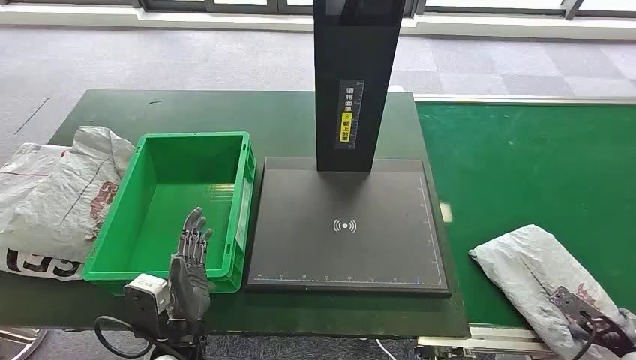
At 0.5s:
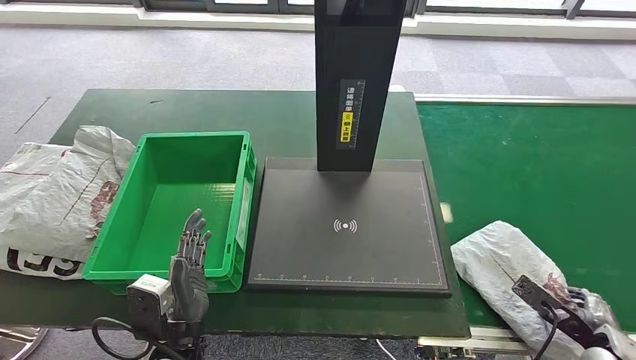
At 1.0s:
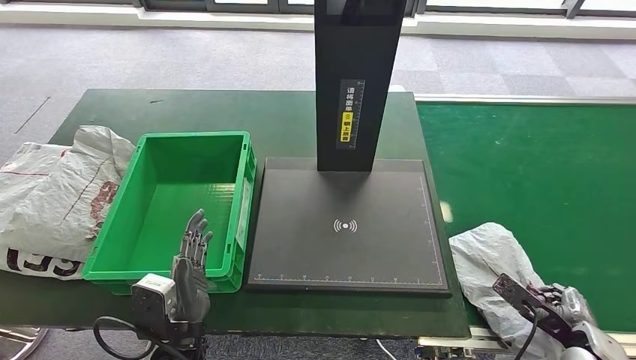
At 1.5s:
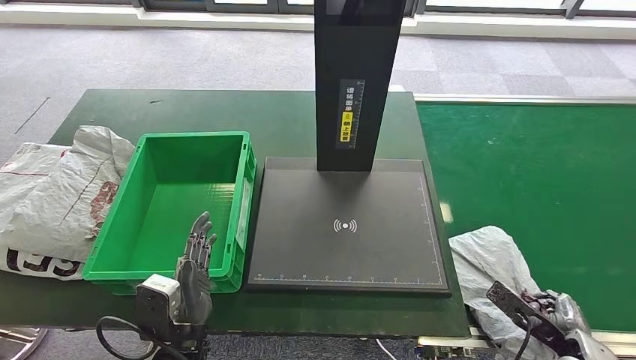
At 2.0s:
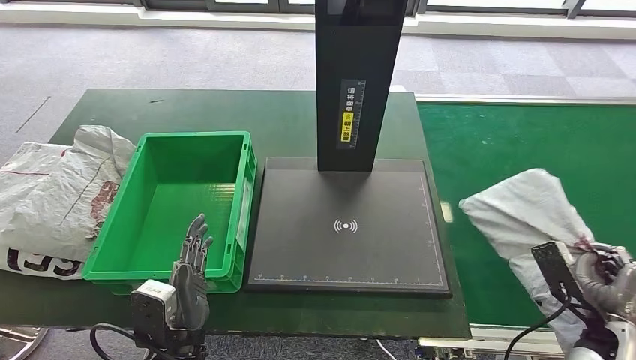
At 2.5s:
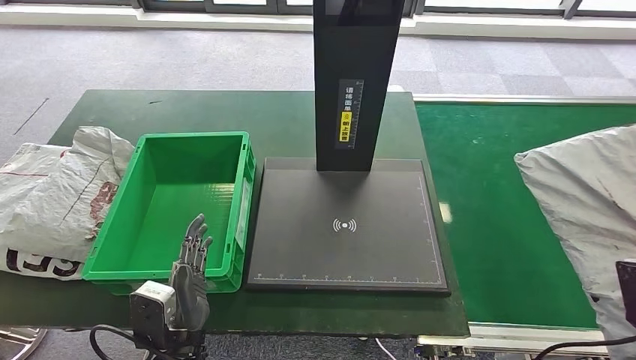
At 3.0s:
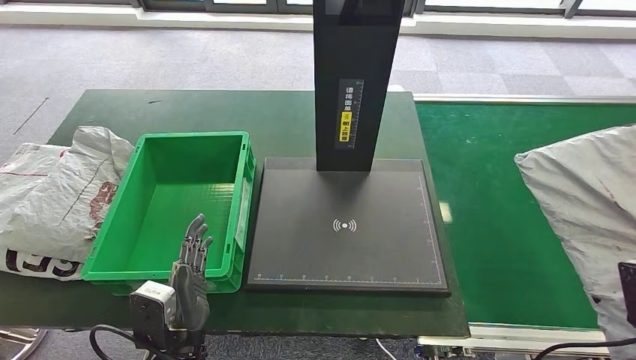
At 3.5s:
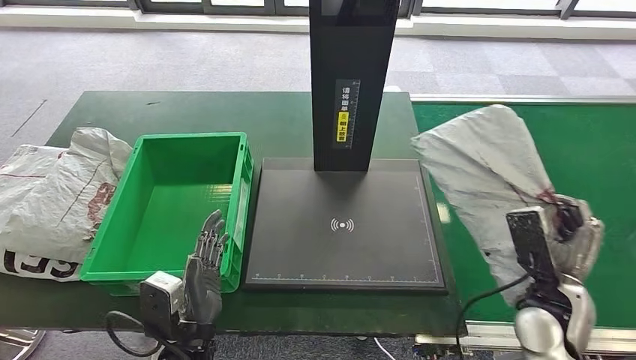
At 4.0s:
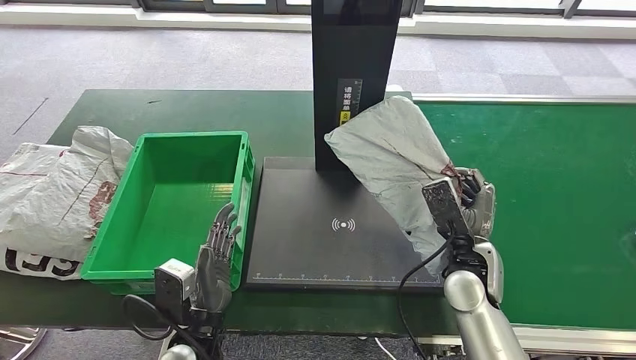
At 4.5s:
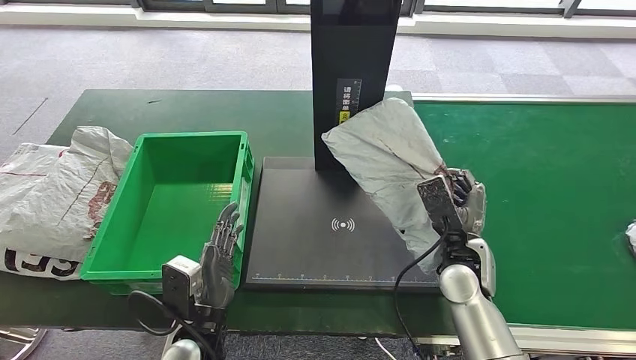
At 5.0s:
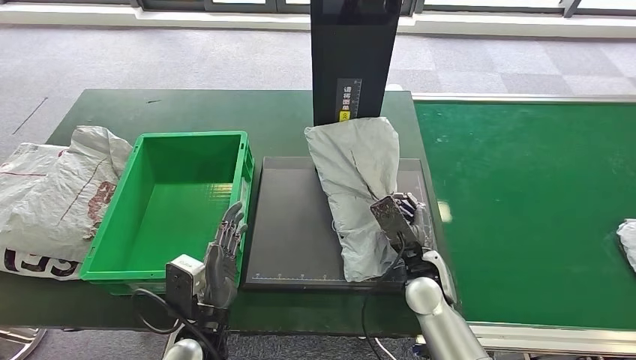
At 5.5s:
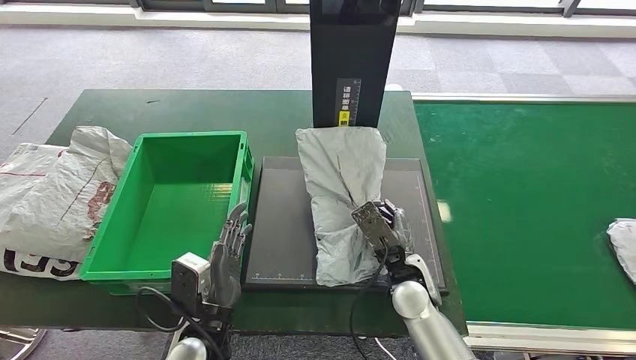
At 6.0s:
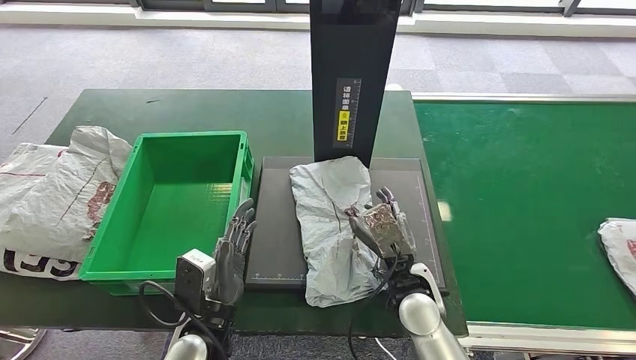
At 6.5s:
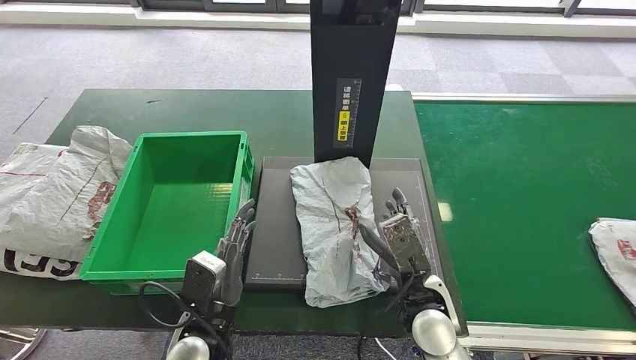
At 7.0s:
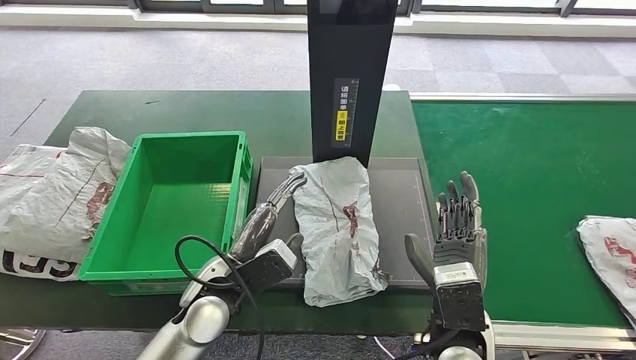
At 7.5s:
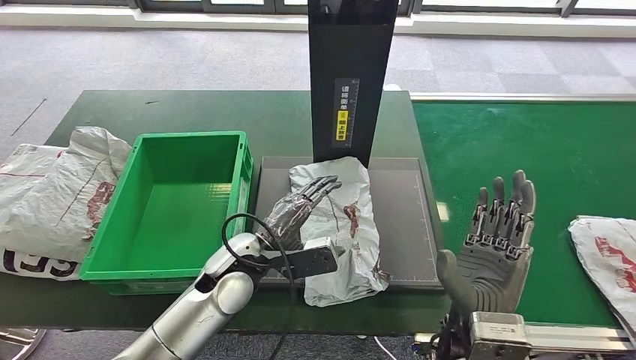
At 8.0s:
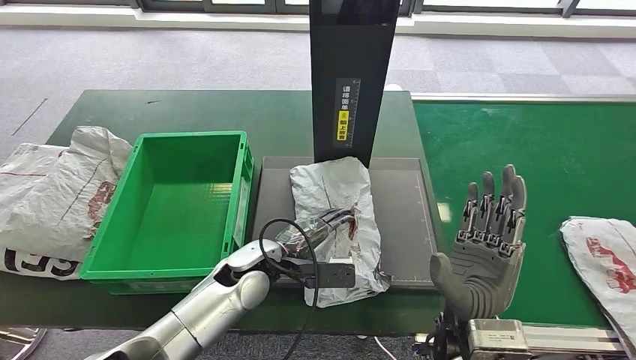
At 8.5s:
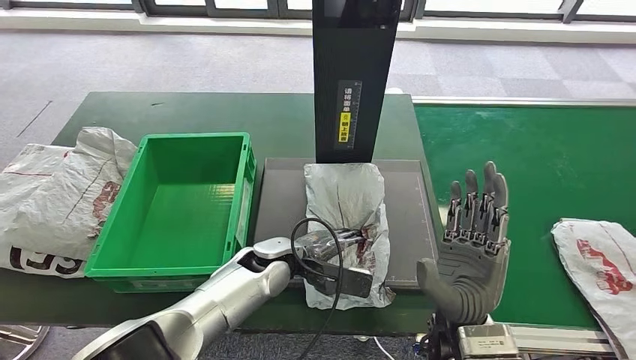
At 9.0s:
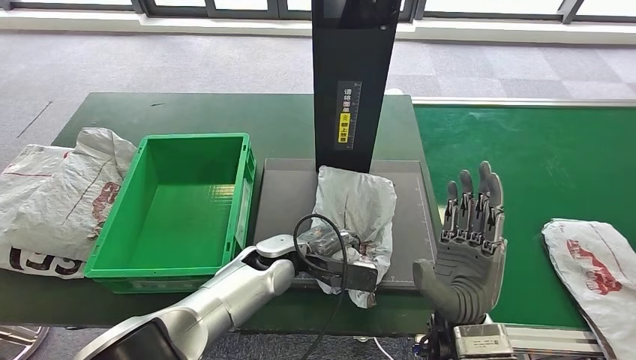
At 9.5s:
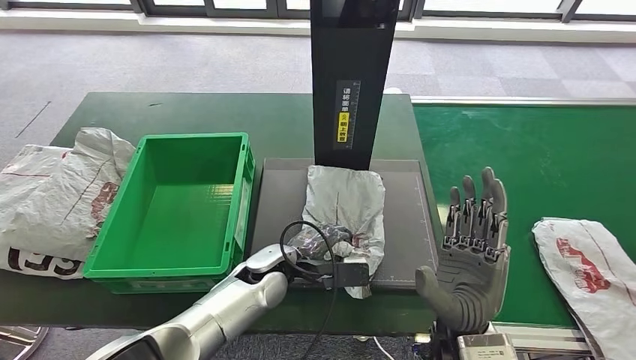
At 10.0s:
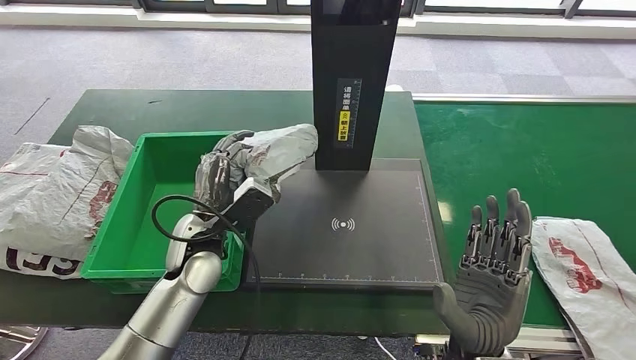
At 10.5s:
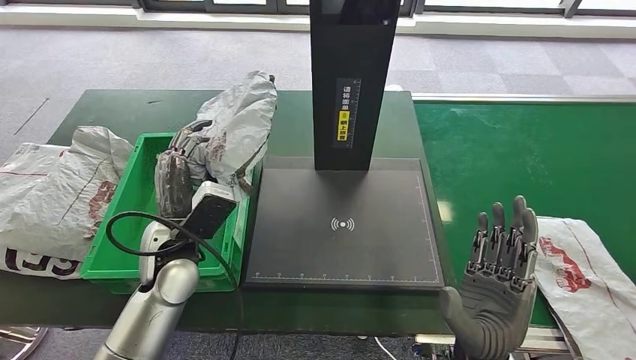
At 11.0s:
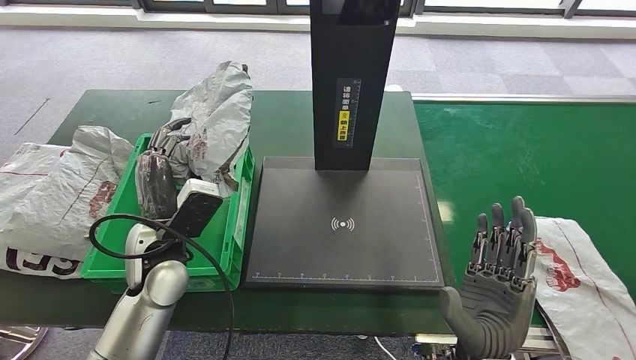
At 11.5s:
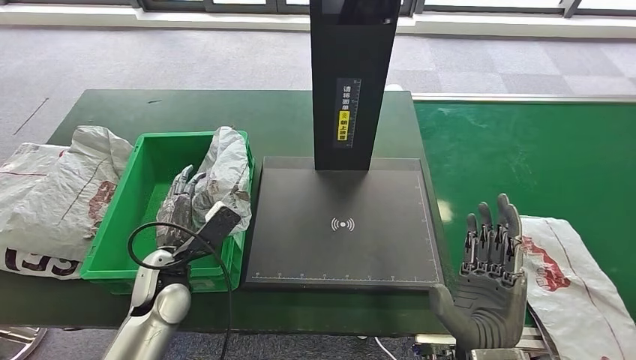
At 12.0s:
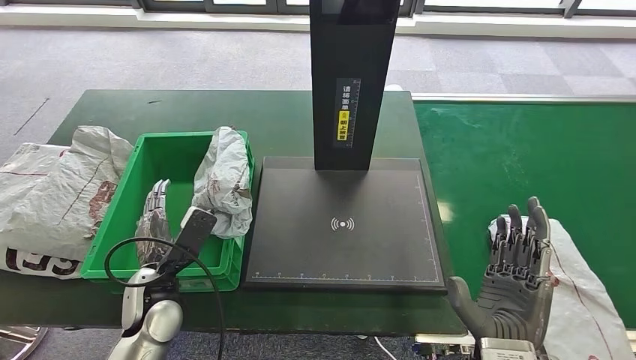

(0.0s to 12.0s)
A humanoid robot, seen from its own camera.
Step, 0.0s - 2.0s: Take the parcel off the conveyor belt.
Step, 2.5s - 6.5s: Place the parcel onto the inbound machine.
Step, 7.0s - 10.5s: Pick up the parcel from the inbound machine.
6.0s - 8.0s: The left hand travels forward and to the right by approximately 15 cm; the right hand moves upward and backward, about 10 cm.
10.0s - 12.0s: The left hand goes approximately 10 cm to the left, downward and backward.

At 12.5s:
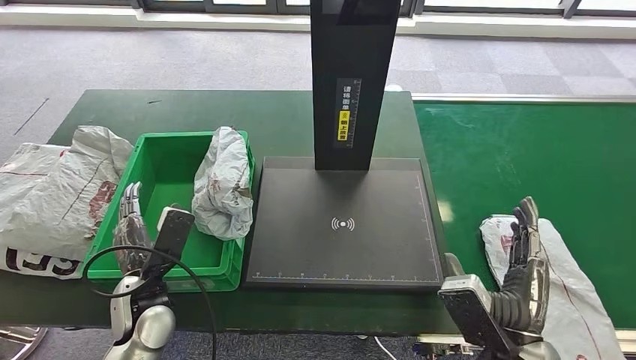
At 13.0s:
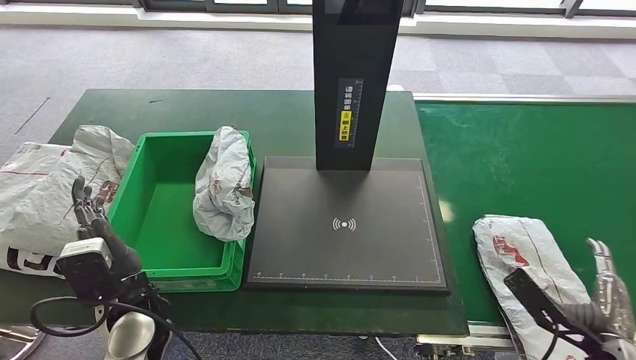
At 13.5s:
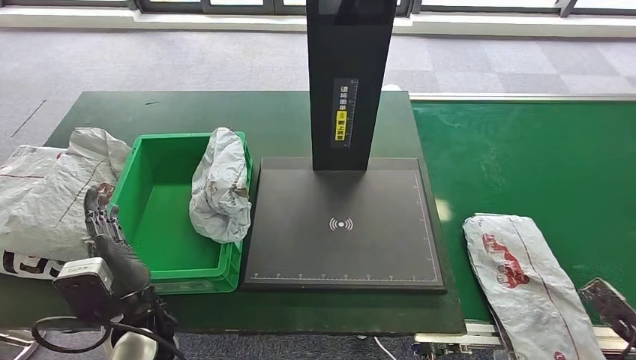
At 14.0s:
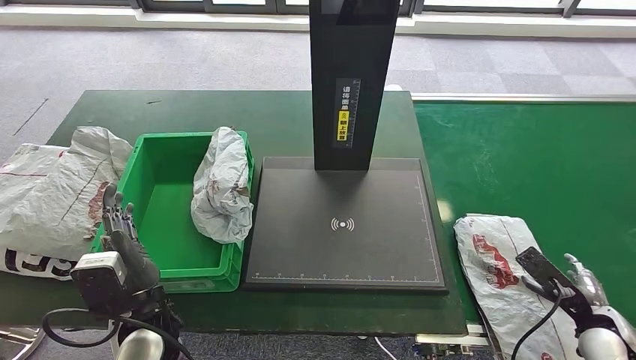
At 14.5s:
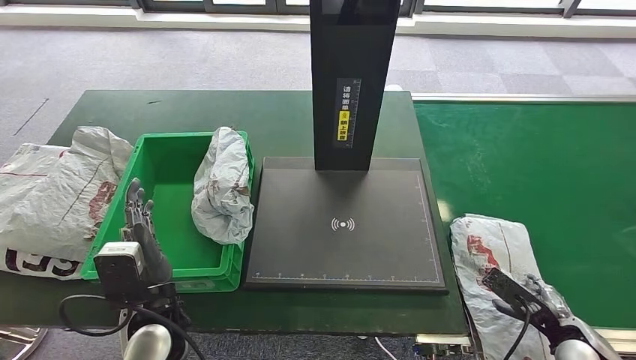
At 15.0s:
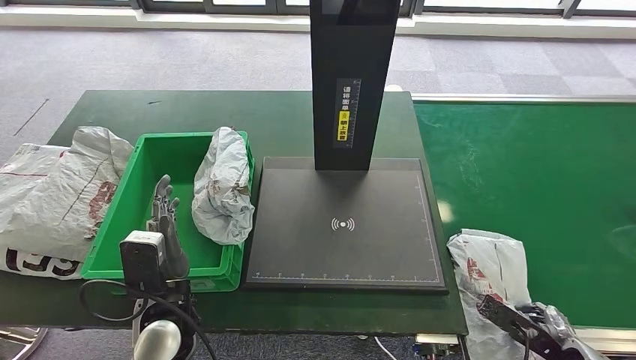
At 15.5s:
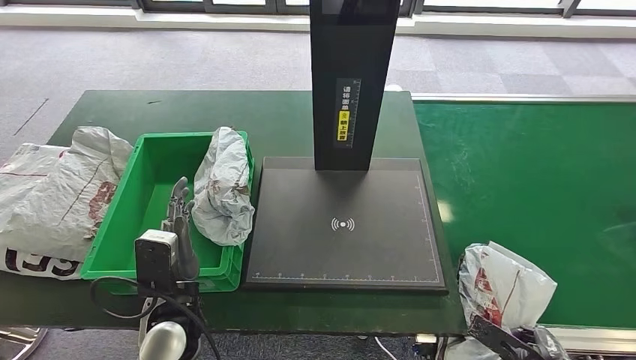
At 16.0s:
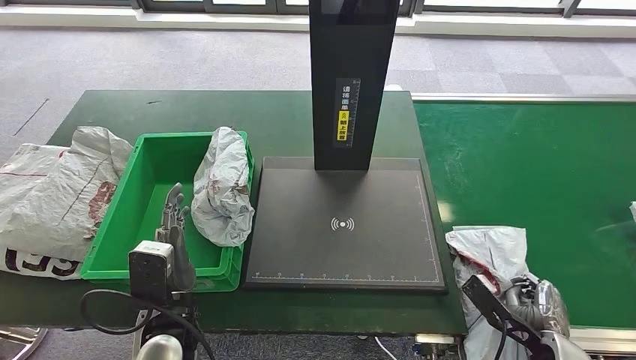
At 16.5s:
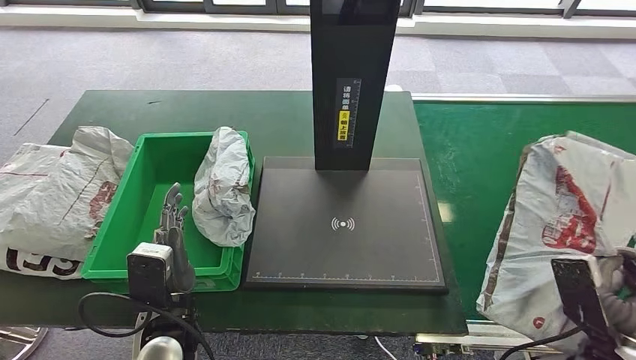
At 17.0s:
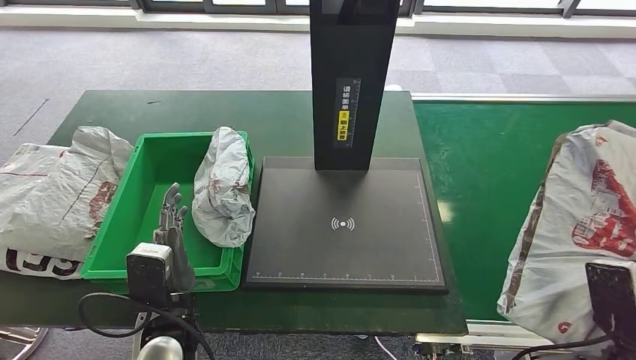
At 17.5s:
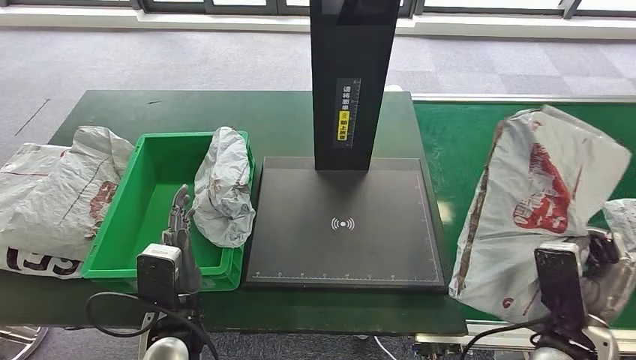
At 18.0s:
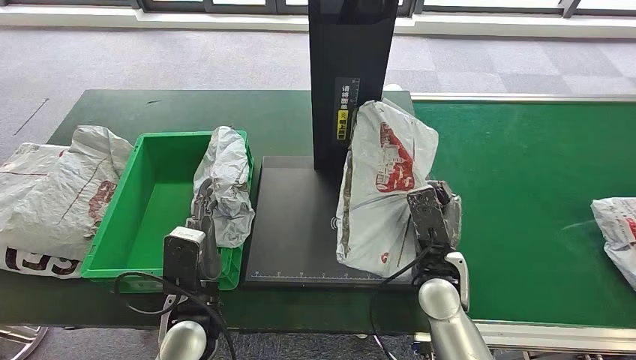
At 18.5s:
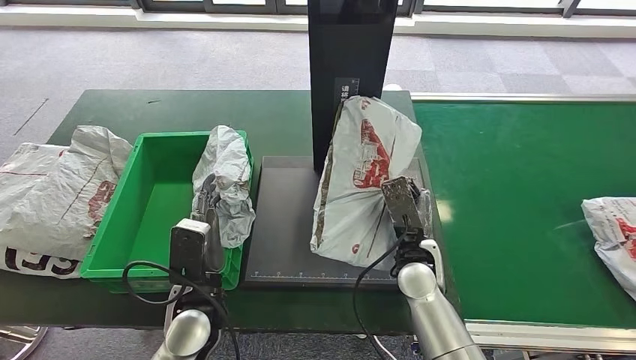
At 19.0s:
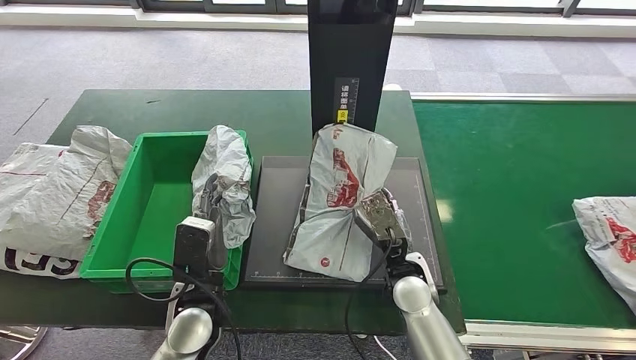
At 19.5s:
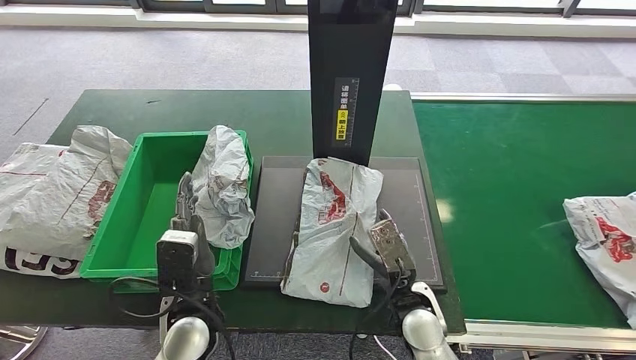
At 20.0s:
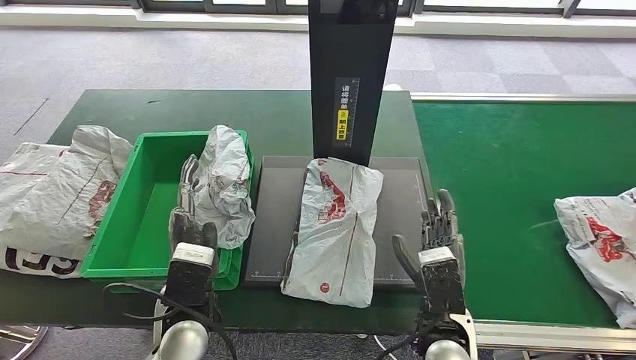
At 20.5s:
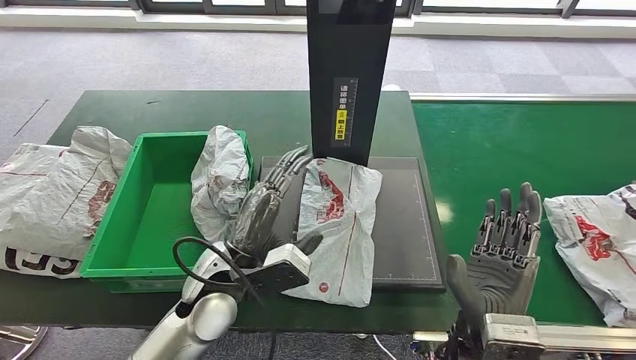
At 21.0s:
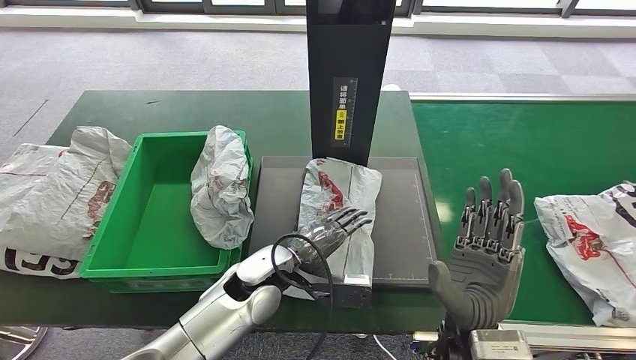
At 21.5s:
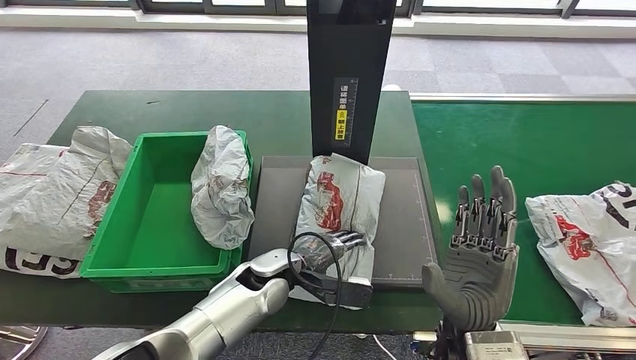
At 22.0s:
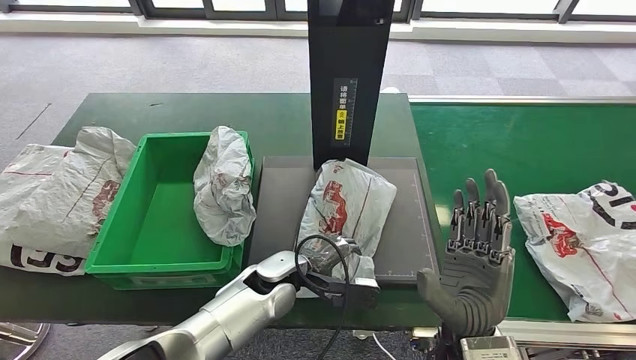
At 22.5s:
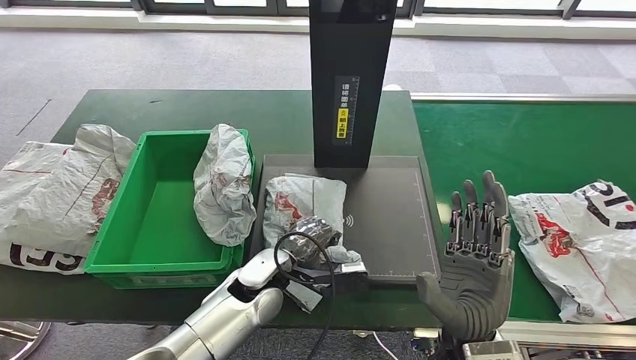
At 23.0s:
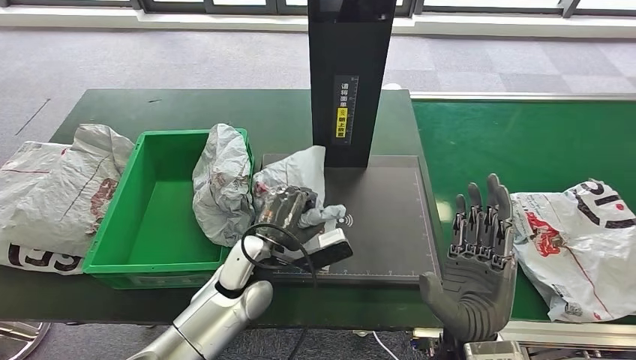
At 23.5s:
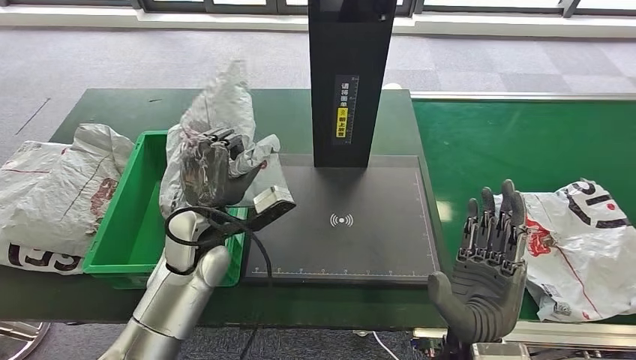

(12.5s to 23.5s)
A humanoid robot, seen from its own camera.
Step, 15.0s - 16.5s: Pick up the parcel from the conveyor belt.
Step, 17.0s - 20.0s: Place the parcel onto the inbound machine.
Step, 20.5s - 23.5s: Pick up the parcel from the inbound machine.
12.5s - 14.5s: The left hand changes place by approximately 5 cm. Meanwhile the right hand heads to the right and downward, covering approximately 25 cm.
14.5s - 16.0s: The right hand travels to the left by approximately 5 cm.
18.0s - 20.0s: The right hand shifts some 10 cm backward.
